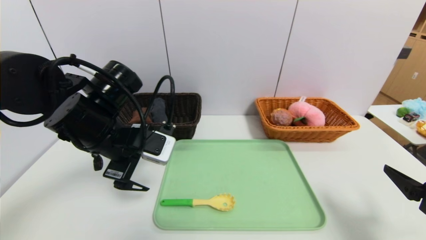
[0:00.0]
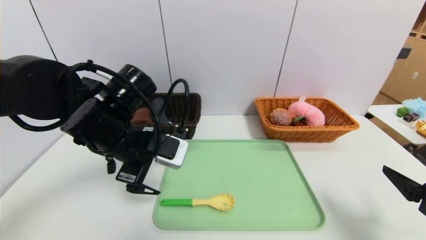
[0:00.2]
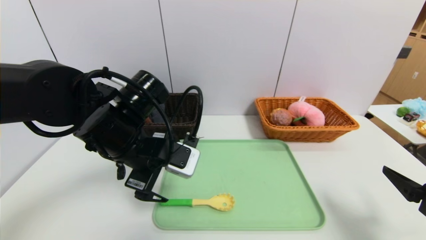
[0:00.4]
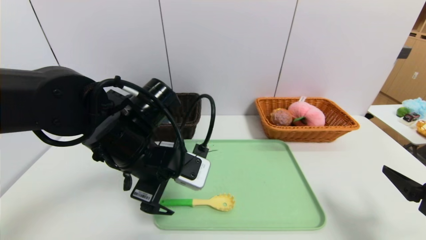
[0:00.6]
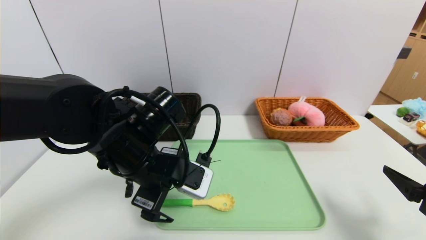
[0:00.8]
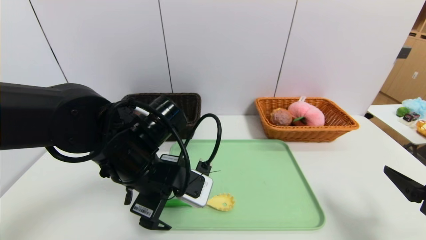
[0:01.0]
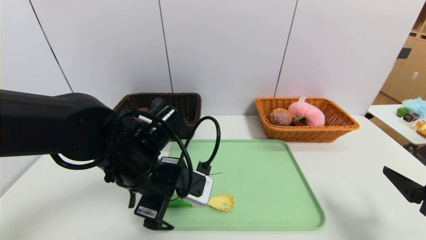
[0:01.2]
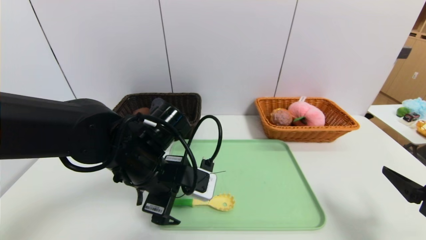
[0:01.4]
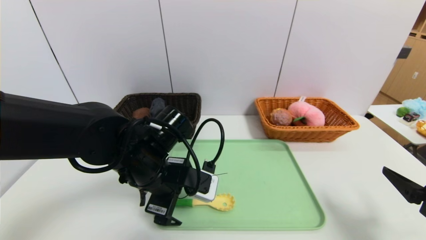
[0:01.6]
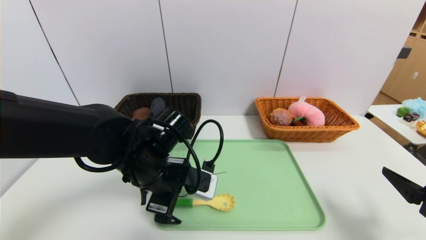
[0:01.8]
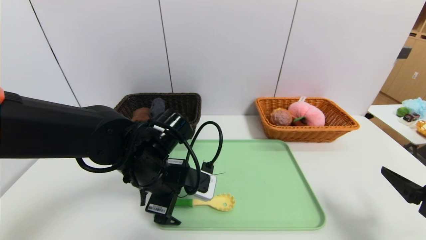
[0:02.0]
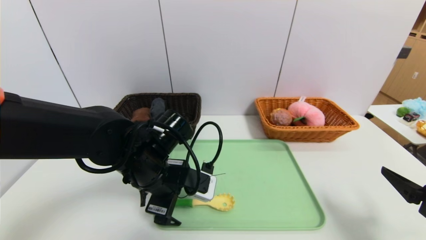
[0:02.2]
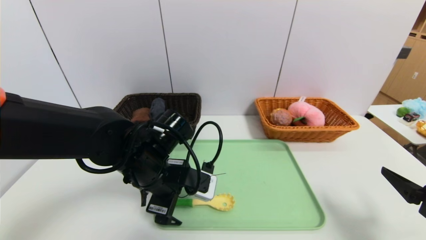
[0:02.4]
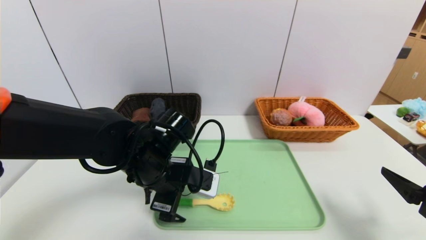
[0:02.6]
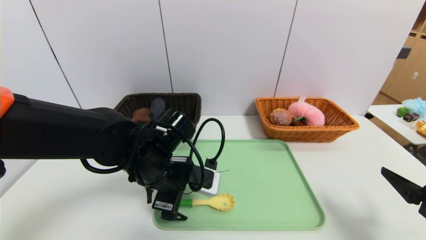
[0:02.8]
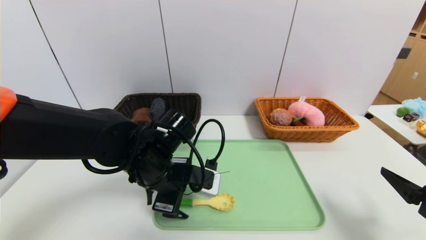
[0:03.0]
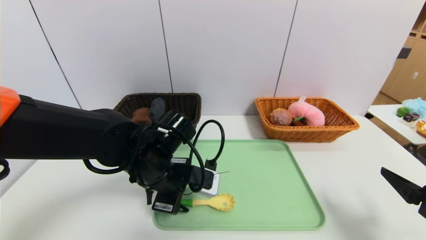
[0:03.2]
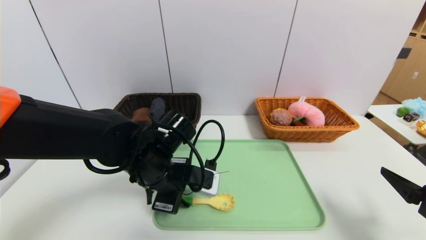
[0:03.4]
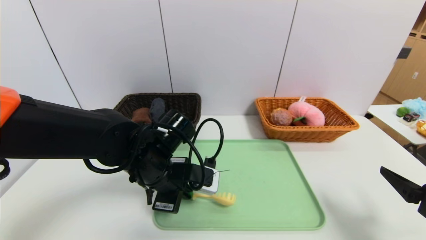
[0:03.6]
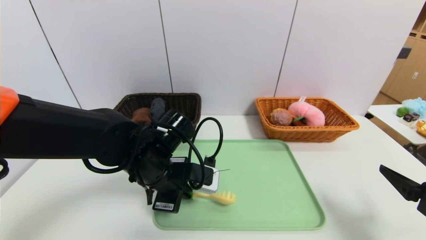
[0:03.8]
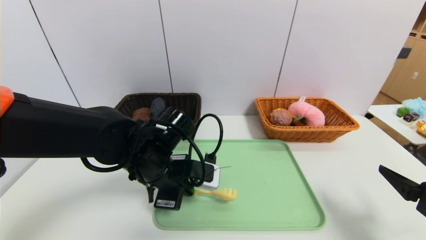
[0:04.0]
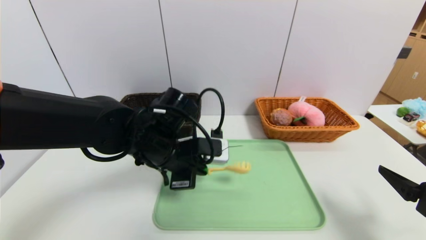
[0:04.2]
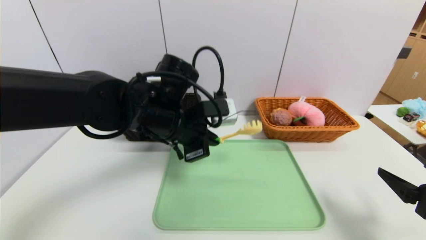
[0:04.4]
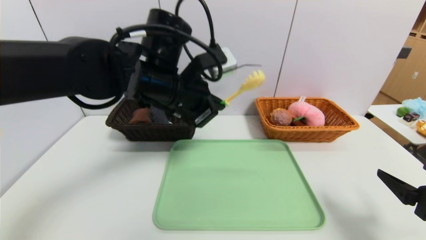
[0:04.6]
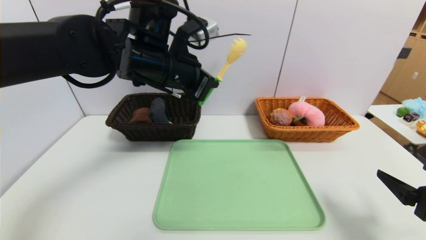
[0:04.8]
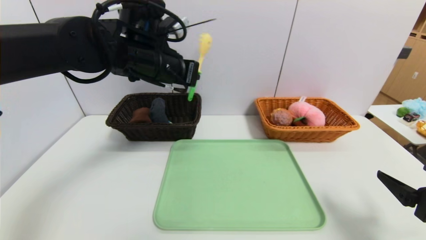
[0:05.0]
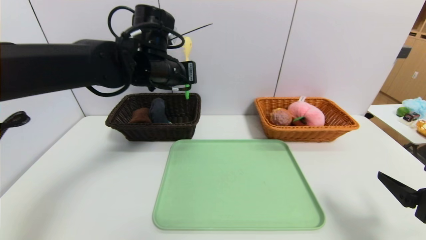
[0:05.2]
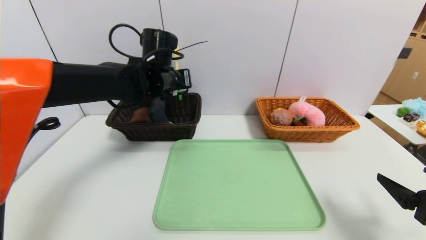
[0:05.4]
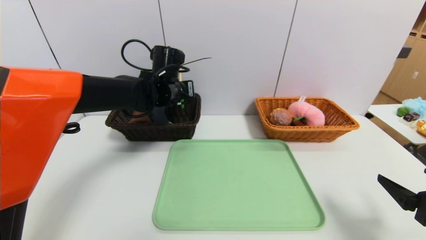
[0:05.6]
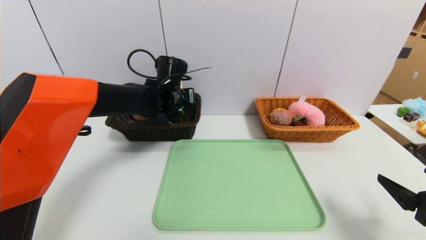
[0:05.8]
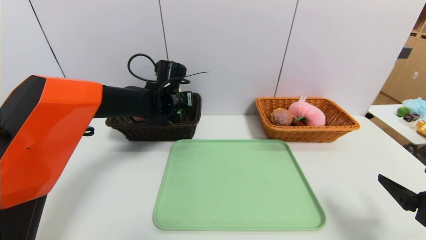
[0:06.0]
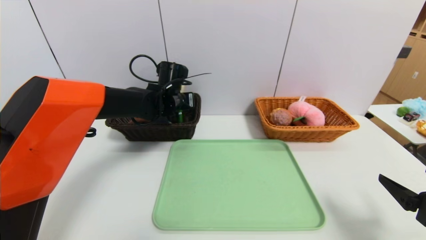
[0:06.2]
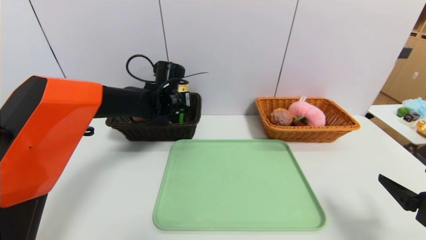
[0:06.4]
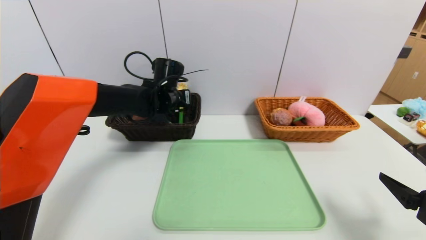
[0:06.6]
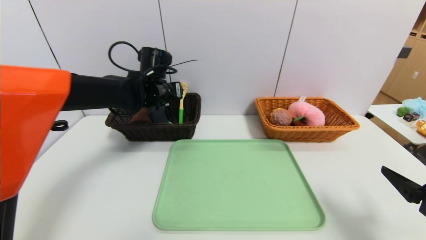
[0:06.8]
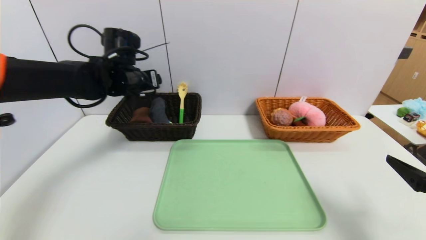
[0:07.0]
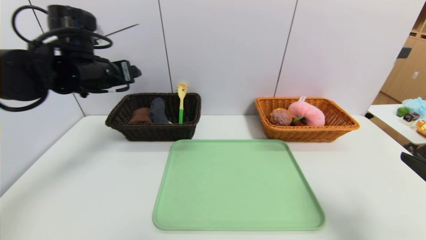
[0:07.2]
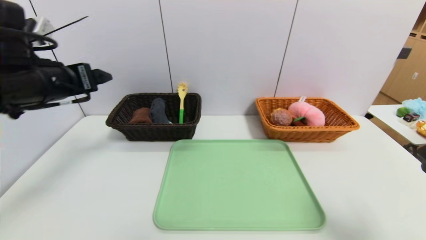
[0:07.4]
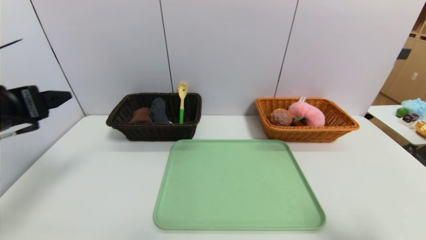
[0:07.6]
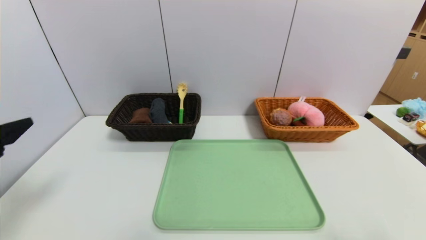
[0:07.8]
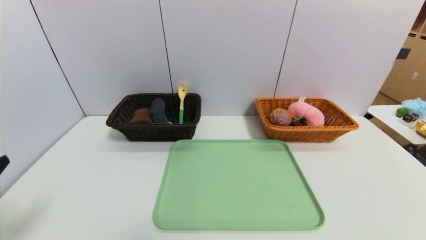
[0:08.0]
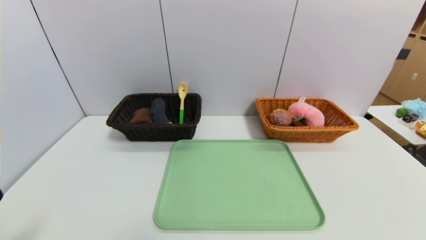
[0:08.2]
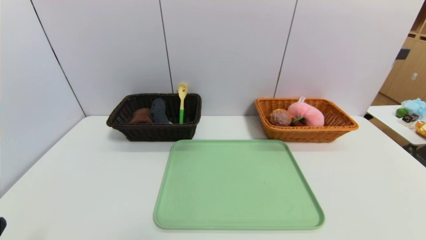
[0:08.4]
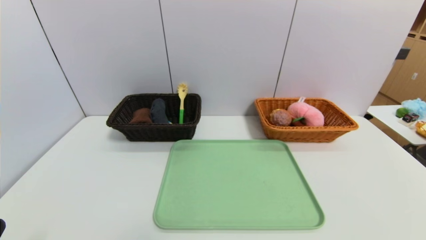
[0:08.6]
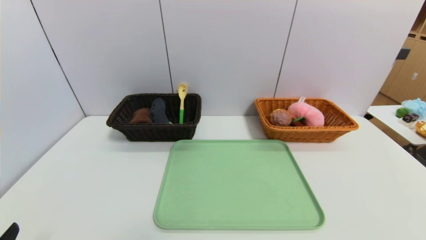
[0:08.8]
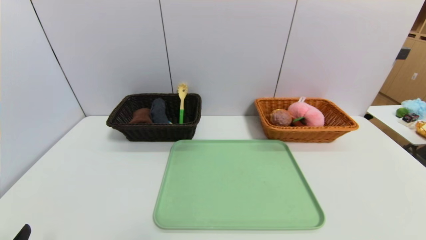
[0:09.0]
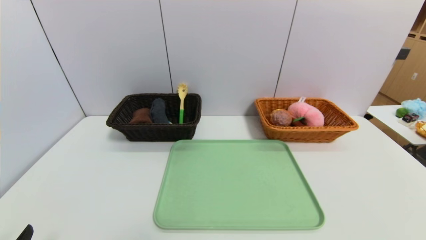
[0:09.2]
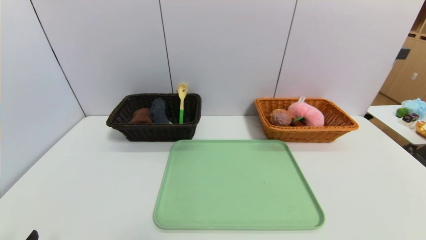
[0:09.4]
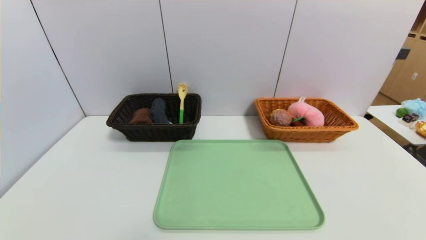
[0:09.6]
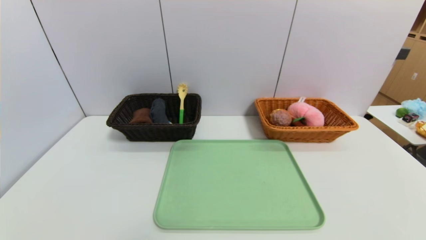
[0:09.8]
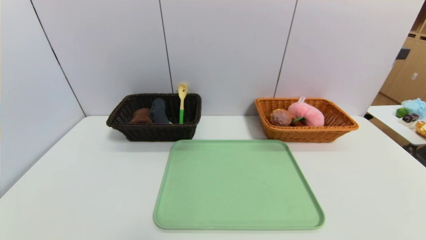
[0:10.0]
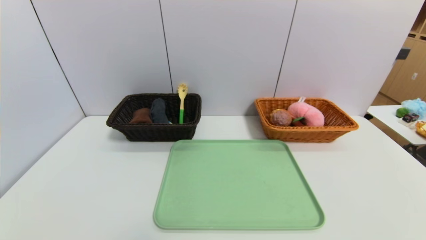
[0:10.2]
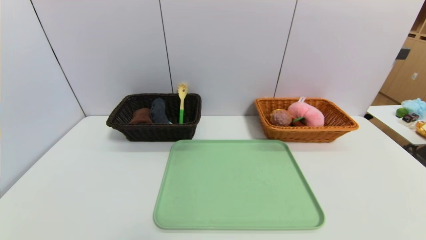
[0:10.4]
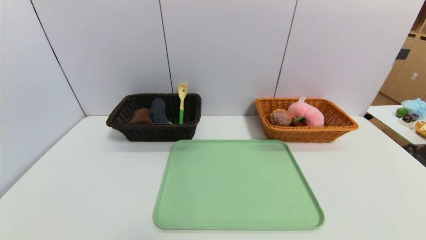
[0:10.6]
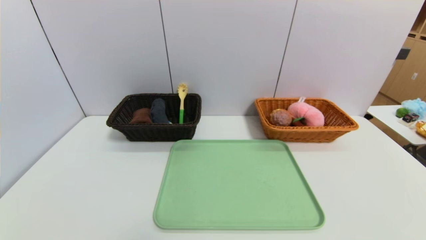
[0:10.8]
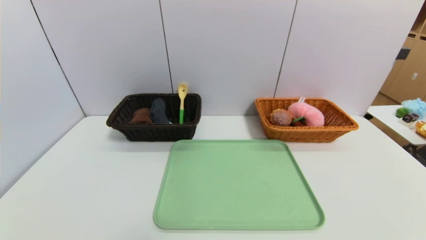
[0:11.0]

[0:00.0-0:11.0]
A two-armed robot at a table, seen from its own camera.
Task of the whole recording: place the food in the right basket with the right gripper, and place the non food items in the left basket with the left gripper.
Step, 0:00.0 to 0:06.8: Grasp the spoon and put it in the left basket.
0:00.0 to 0:01.6: The left gripper travels downward and to the right by some 10 cm.
0:01.6 to 0:03.2: The left gripper closes its fingers.
0:03.2 to 0:04.8: The left gripper shifts about 15 cm upward, and closes up.
0:04.8 to 0:06.2: The left gripper heads downward and forward, covering approximately 15 cm, and opens its fingers.
0:06.2 to 0:07.8: The right gripper shifts approximately 10 cm backward and upward. The left gripper shifts roughly 40 cm backward and to the left, and opens its fingers.
0:07.8 to 0:09.4: The left gripper is displaced downward and backward by approximately 20 cm.
